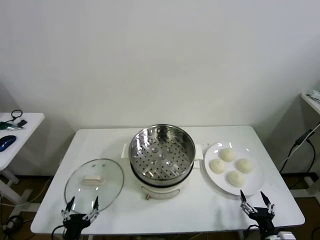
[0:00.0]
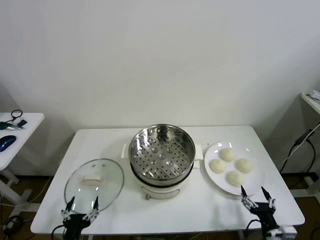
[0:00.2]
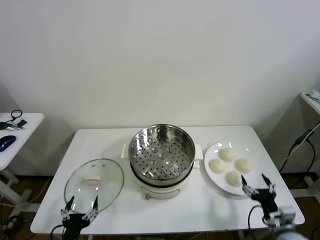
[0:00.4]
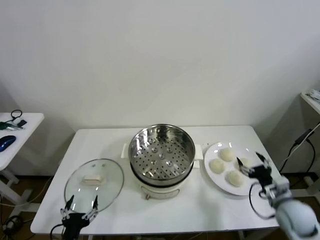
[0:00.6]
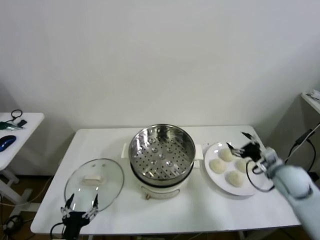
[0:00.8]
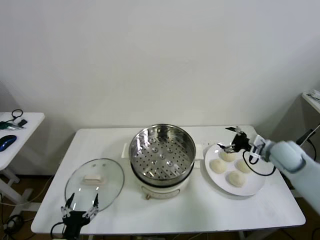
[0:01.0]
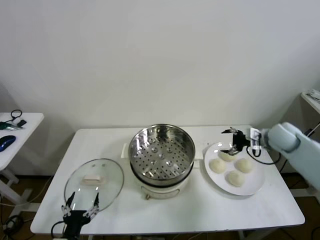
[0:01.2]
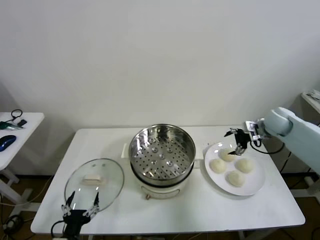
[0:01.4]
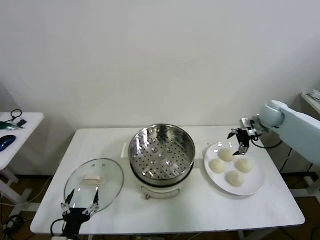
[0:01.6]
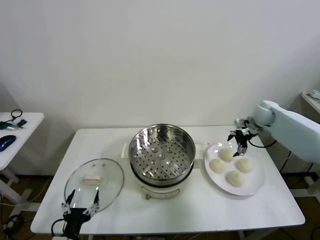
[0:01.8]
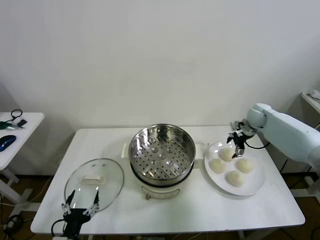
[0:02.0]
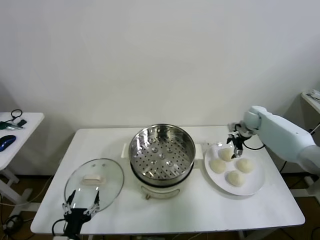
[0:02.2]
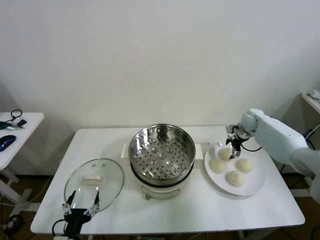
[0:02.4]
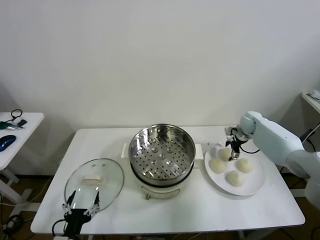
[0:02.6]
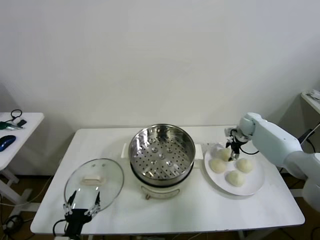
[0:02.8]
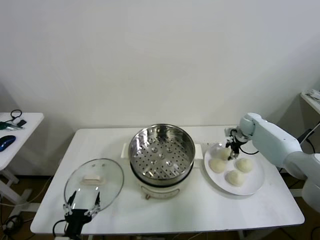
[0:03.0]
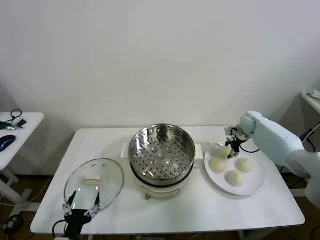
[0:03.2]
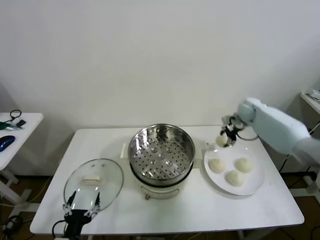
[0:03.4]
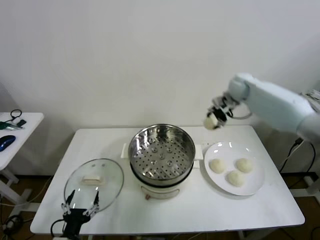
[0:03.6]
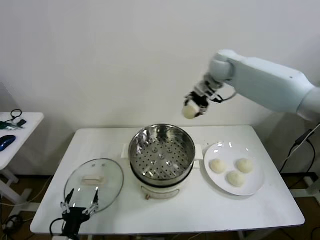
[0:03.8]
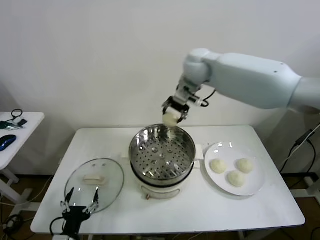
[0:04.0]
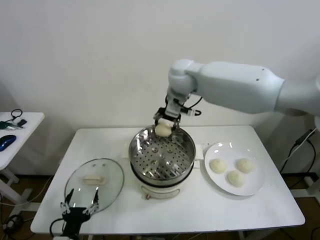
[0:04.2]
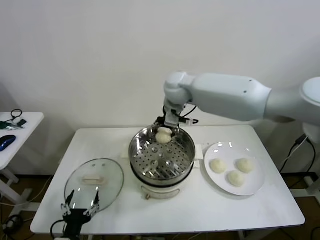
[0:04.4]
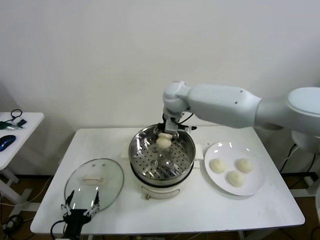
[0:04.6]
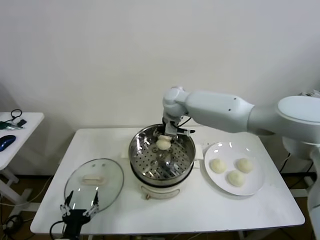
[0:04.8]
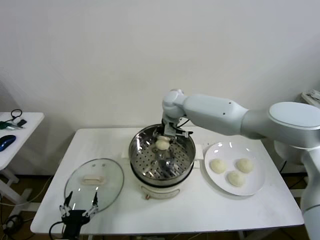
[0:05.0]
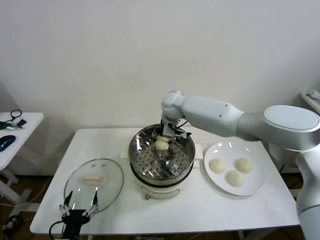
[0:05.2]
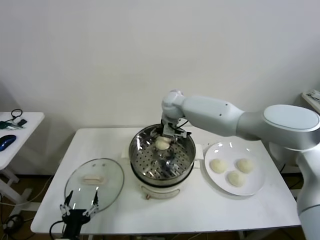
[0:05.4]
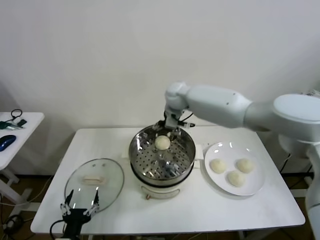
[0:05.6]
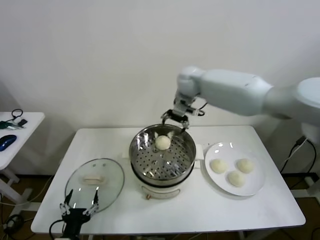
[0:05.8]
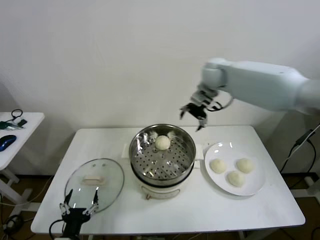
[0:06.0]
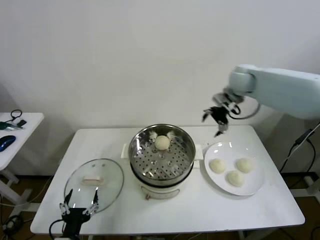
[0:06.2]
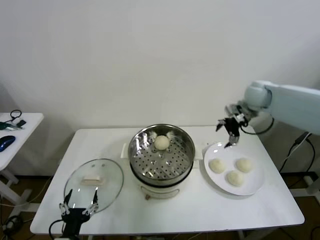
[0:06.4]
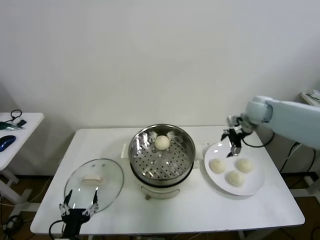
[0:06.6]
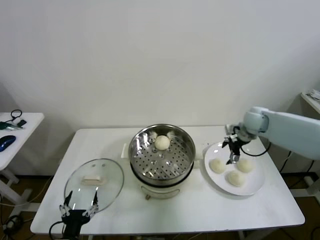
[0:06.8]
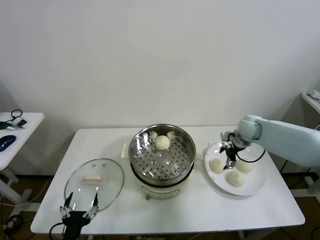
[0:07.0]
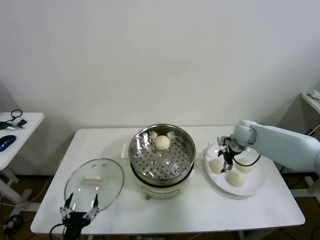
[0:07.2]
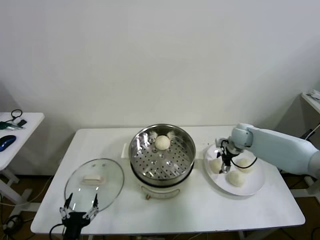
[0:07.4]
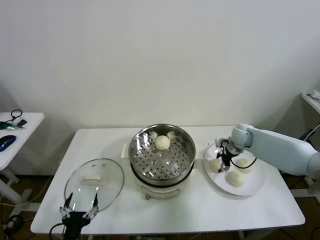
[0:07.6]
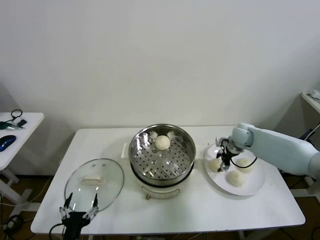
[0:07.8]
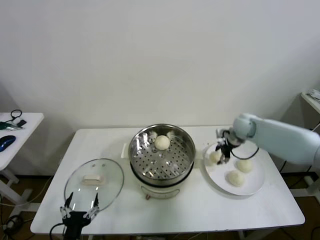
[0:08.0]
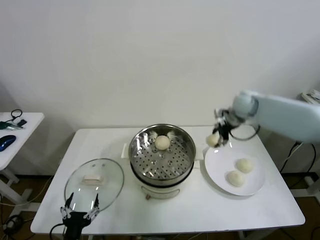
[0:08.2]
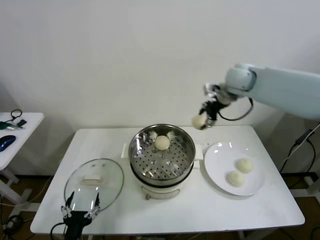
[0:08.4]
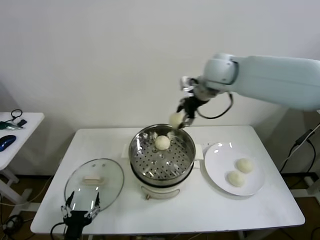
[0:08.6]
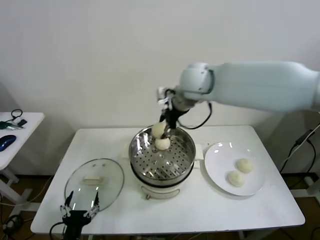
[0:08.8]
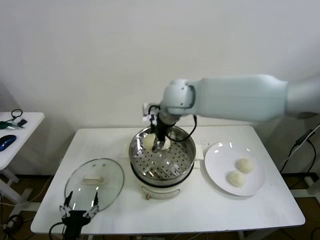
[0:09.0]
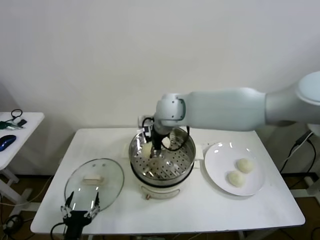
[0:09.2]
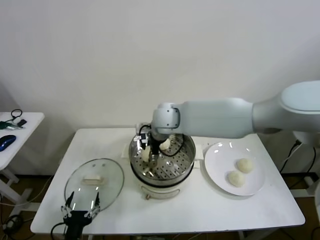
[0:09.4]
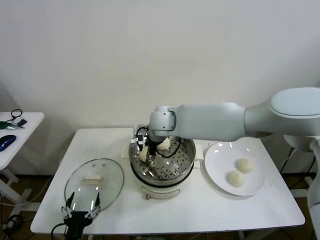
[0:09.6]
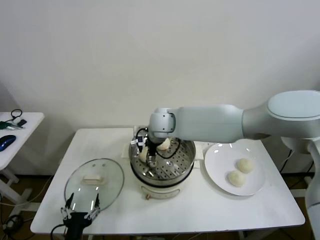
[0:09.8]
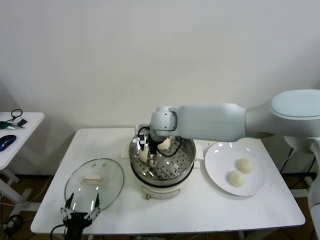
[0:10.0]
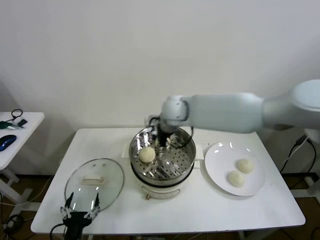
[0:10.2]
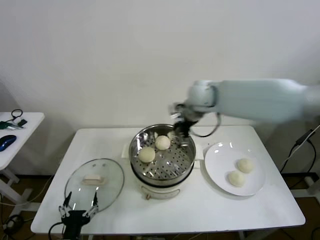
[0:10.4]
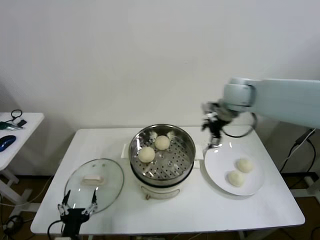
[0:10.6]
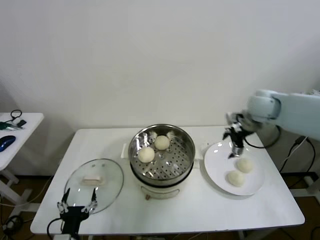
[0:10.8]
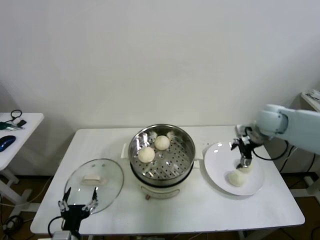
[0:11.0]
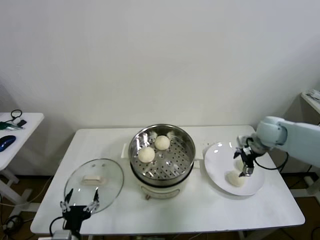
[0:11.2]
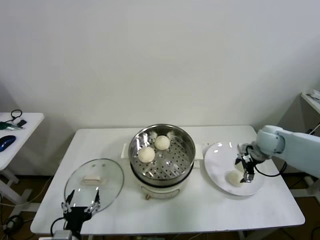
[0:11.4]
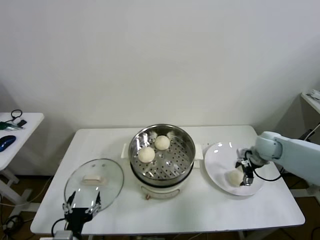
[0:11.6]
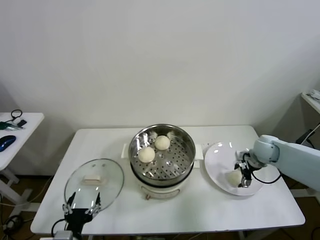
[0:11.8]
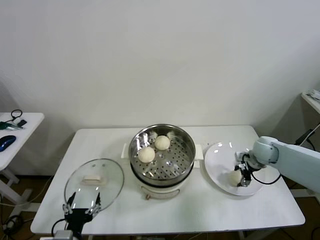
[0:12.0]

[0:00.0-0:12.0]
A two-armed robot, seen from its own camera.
Step, 0.0 to 2.8 s: Grasp the baozi in the plate with right gripper.
Step, 3.0 to 5.2 s: Place the baozi on the steamer with right gripper.
Step, 5.4 to 7.6 s: Grasp the baozi in the plate with right gripper.
Step, 7.8 to 9.8 s: Place the baozi on the steamer with right gripper.
1.6 to 3.0 s: The right gripper is displaced downward by approximately 10 cm, and closes up.
3.0 to 4.4 s: The right gripper moves to the left and upward, approximately 40 cm.
4.4 to 6.0 s: The right gripper goes approximately 20 cm to the right, and opens its fingers.
6.0 to 7.6 s: The right gripper travels downward by approximately 25 cm, and closes its fingers.
7.6 to 9.0 s: The right gripper shifts roughly 35 cm to the left and upward.
9.0 to 10.4 s: The right gripper travels to the right by roughly 15 cm, and opens.
10.4 to 12.0 s: The right gripper shifts roughly 30 cm downward and to the right, and closes its fingers.

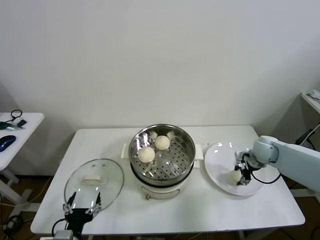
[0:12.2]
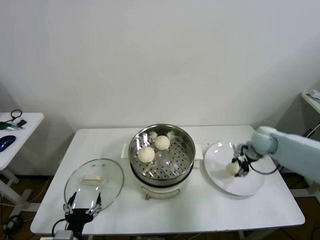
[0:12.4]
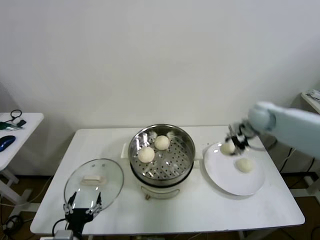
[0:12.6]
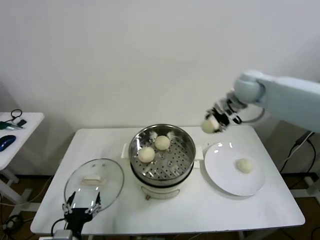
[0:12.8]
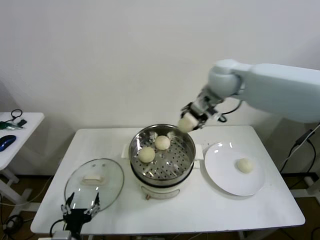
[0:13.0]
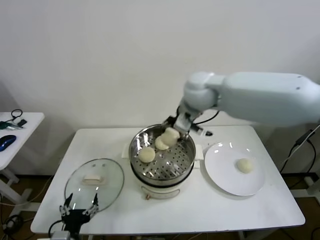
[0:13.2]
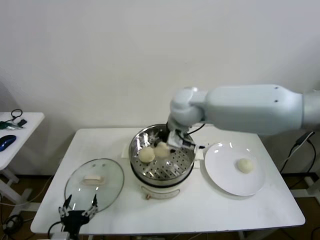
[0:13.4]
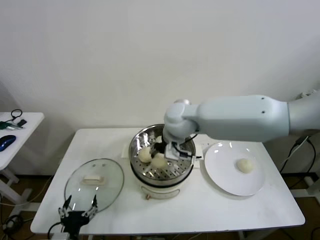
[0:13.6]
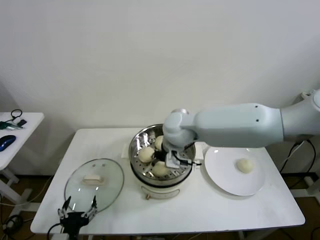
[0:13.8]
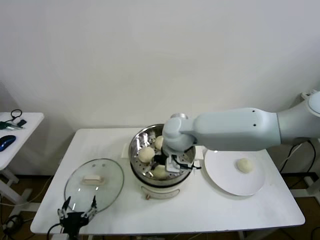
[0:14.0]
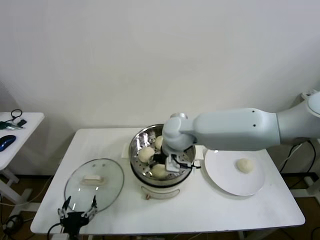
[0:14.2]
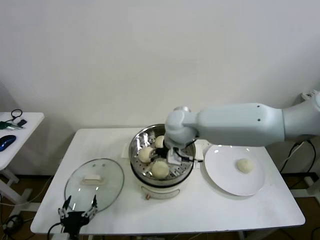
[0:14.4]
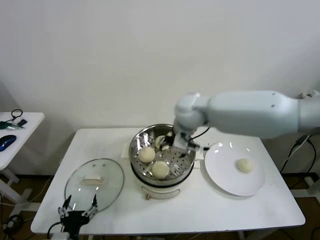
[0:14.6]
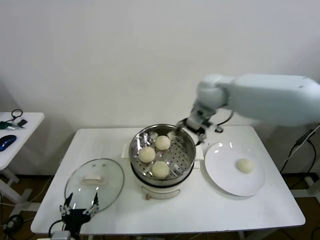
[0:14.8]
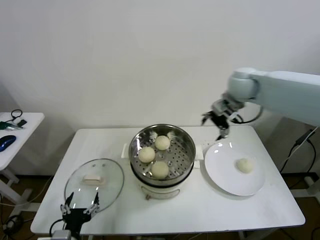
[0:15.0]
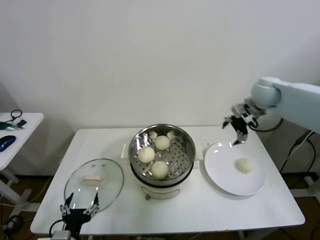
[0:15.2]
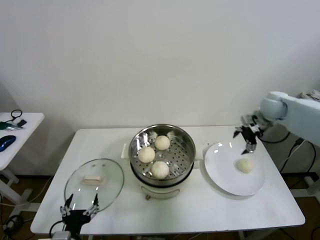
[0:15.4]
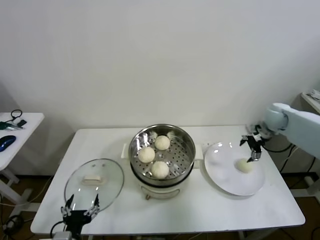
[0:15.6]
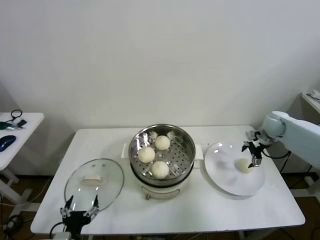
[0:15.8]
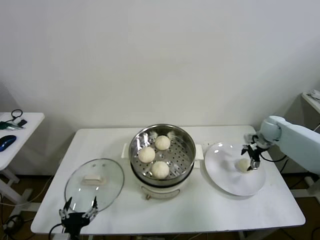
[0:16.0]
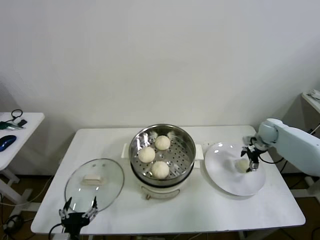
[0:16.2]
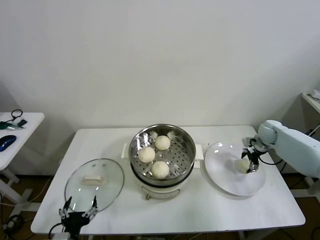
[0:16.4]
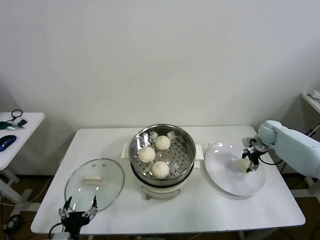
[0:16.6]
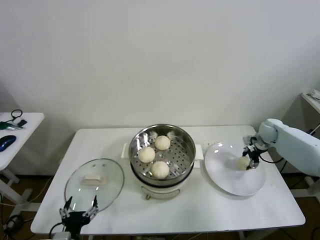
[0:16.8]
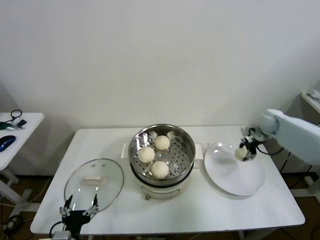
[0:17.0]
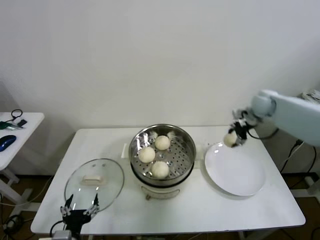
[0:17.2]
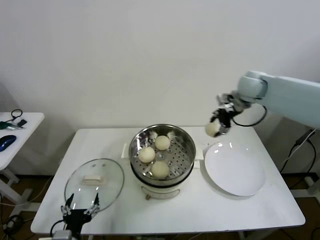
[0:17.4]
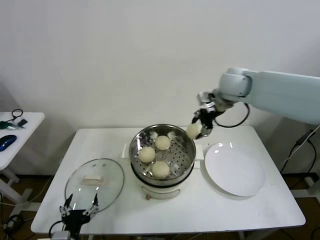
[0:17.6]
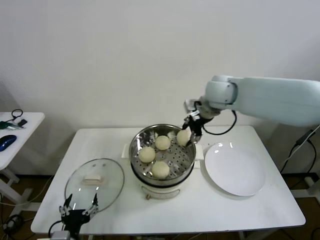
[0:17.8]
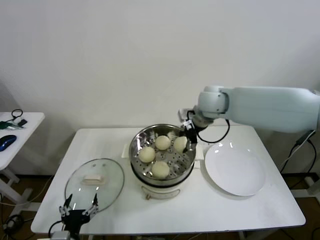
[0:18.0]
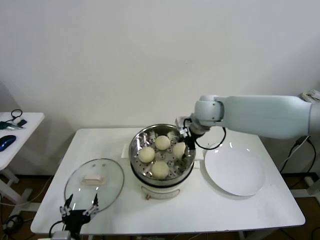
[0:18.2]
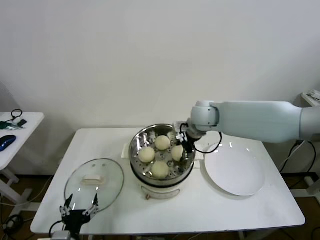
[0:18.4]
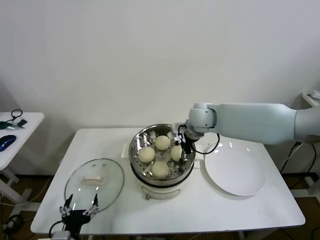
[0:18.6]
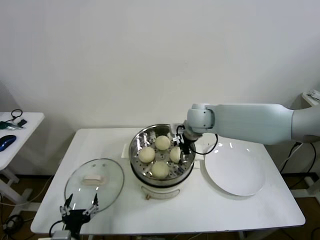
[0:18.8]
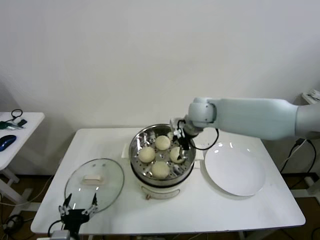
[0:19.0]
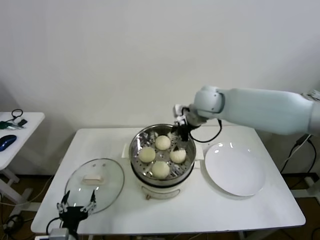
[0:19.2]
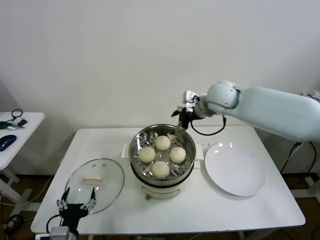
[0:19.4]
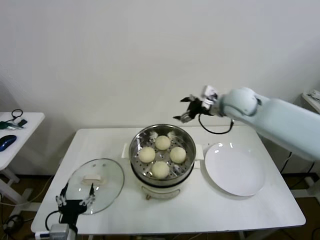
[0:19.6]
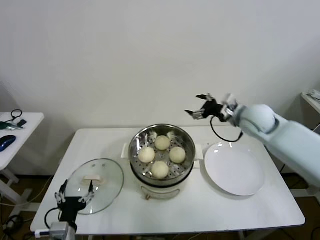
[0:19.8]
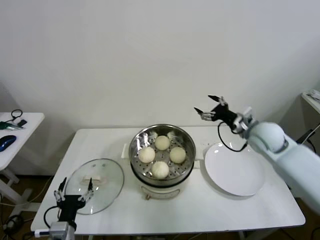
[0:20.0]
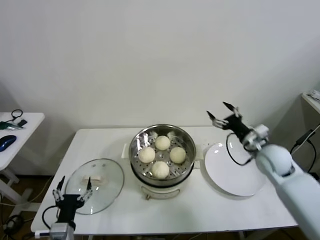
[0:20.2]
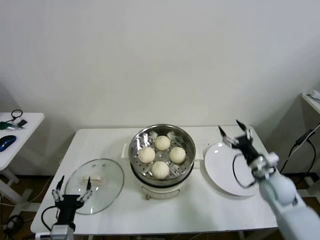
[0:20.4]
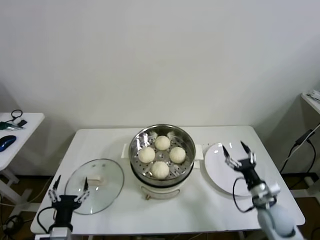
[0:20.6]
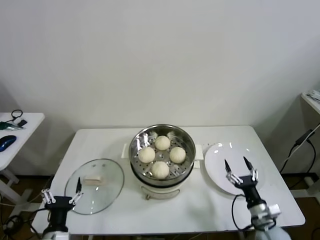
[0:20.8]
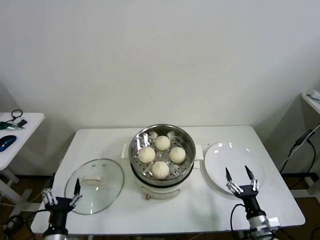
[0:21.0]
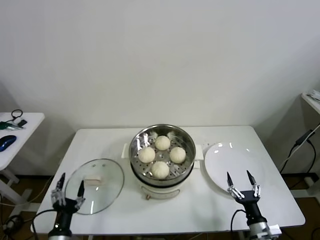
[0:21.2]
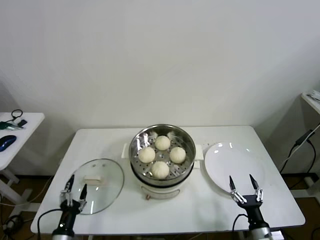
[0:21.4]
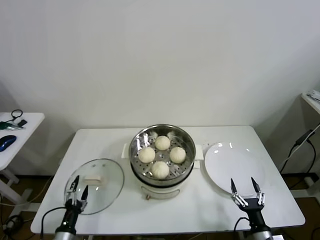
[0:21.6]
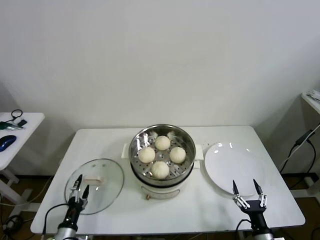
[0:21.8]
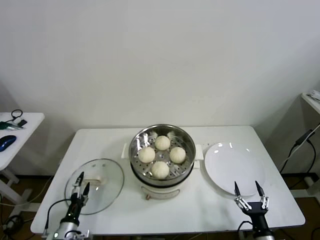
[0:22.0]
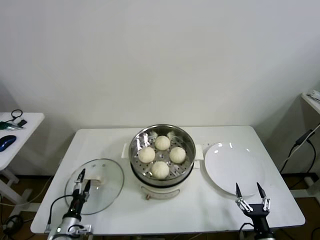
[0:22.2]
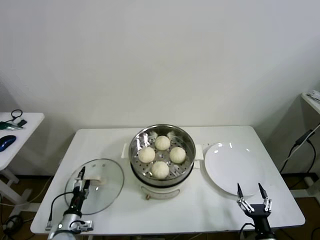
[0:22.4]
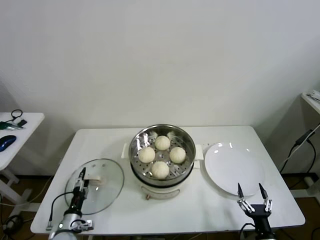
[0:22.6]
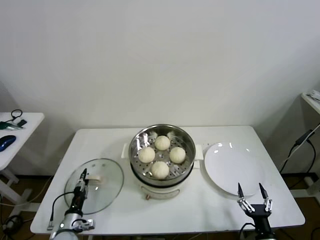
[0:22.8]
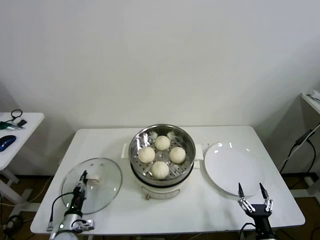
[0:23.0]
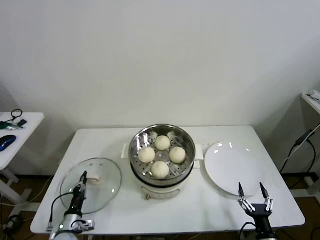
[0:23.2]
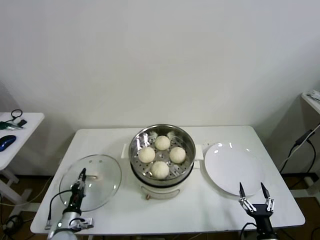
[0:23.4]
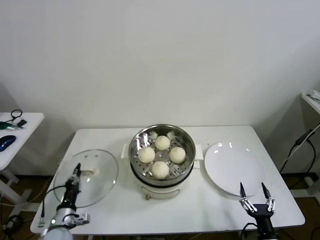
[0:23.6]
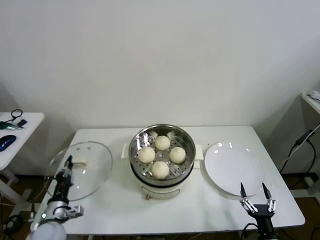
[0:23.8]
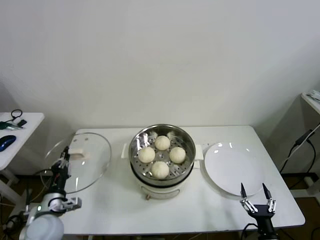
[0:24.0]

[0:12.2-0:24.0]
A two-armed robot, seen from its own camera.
Step, 12.2 to 14.2 s: Place the baozi on the steamer with right gripper.
Step, 14.4 to 16.6 s: Grasp the baozi in the plate with right gripper.
Step, 16.8 to 18.6 s: Place the baozi on the steamer with right gripper.
Step, 19.0 to 23.2 s: Grasp the pot lid with left gripper.
12.2 to 13.6 s: The right gripper moves to the left and upward, approximately 35 cm.
13.6 to 15.2 s: The right gripper heads to the right, covering approximately 30 cm, and opens.
15.2 to 16.6 s: The right gripper travels downward and to the right by approximately 20 cm, and closes.
16.6 to 18.2 s: The right gripper heads to the left and upward, covering about 35 cm.
18.2 to 19.6 s: The right gripper shifts roughly 10 cm to the right, and opens up.
19.6 to 21.0 s: The right gripper heads downward and backward, covering approximately 50 cm.
21.0 to 22.6 s: The right gripper moves backward, some 5 cm. Meanwhile the left gripper heads downward and forward, covering about 15 cm.
22.6 to 24.0 s: The left gripper is displaced upward by approximately 15 cm, and closes up.
